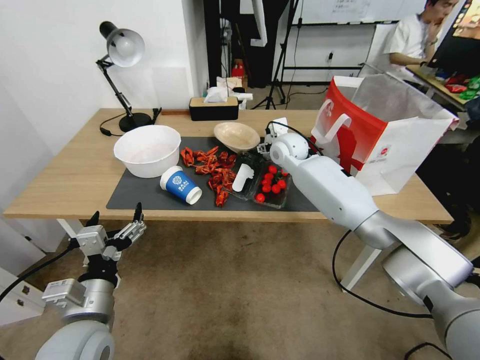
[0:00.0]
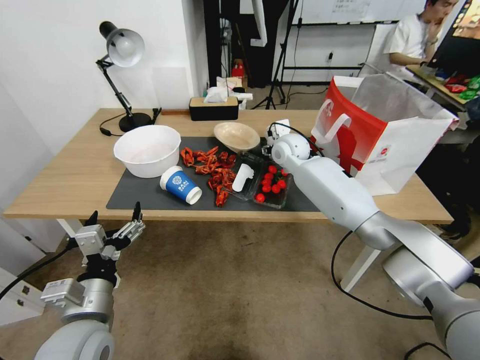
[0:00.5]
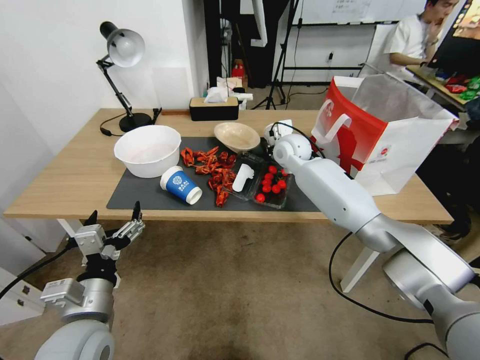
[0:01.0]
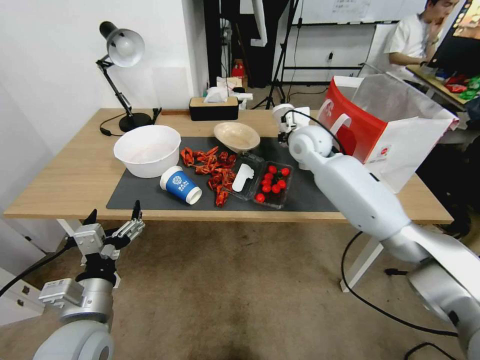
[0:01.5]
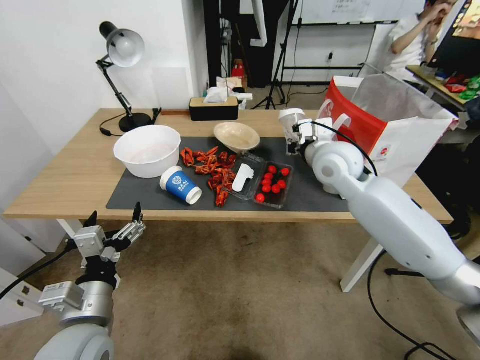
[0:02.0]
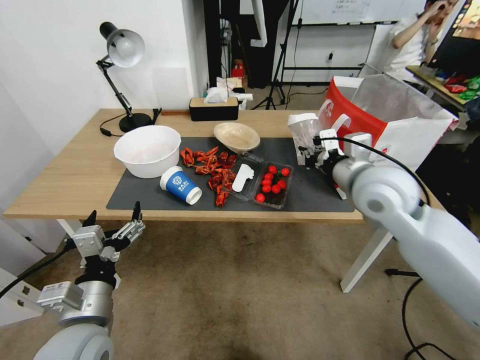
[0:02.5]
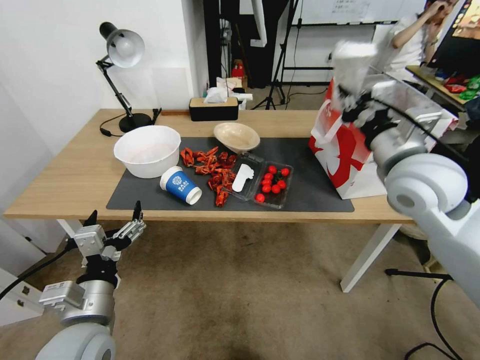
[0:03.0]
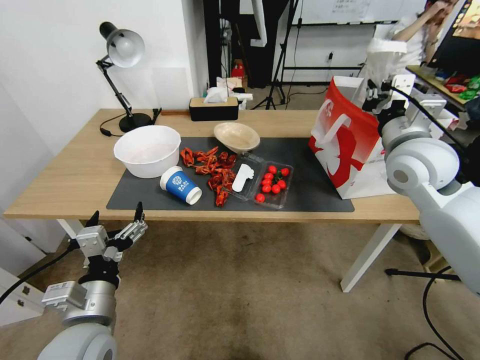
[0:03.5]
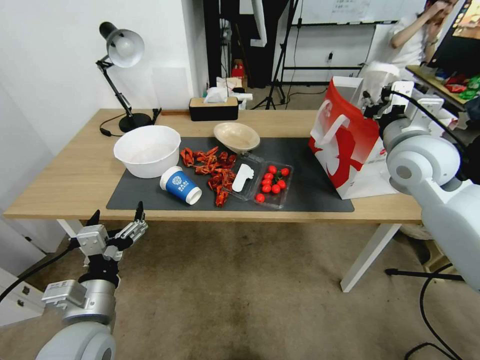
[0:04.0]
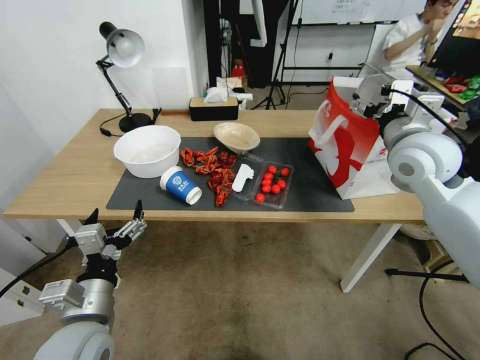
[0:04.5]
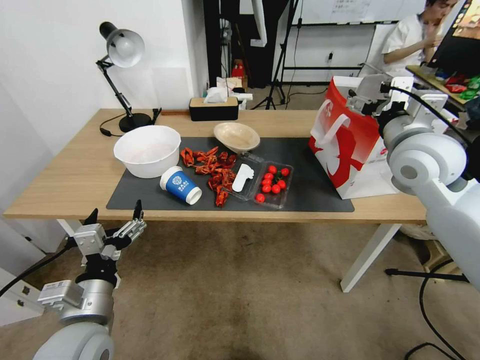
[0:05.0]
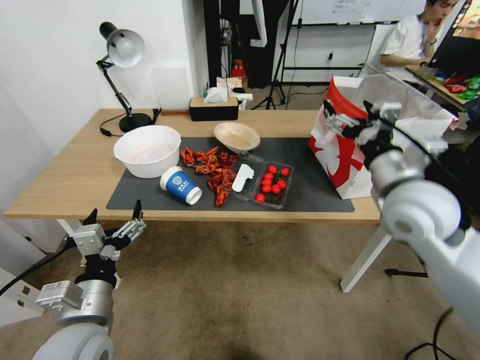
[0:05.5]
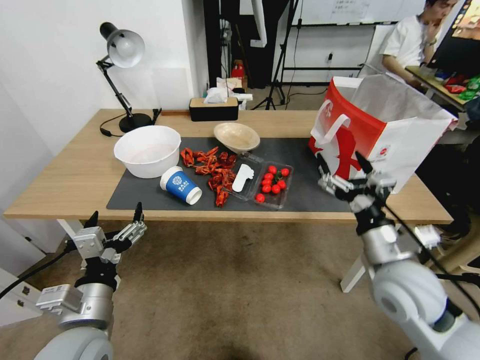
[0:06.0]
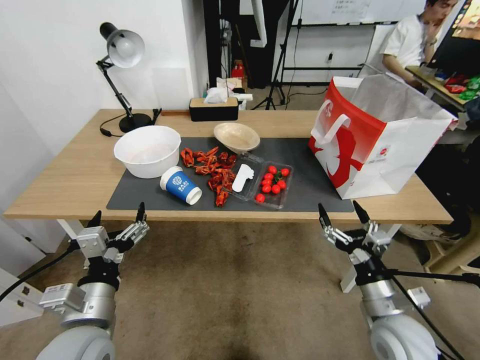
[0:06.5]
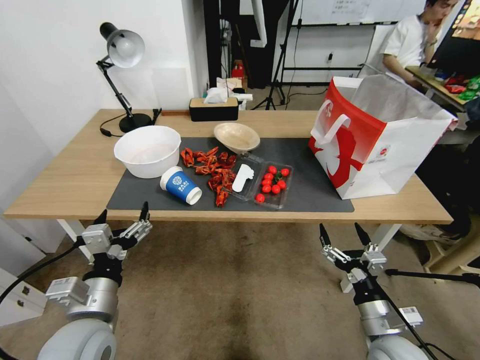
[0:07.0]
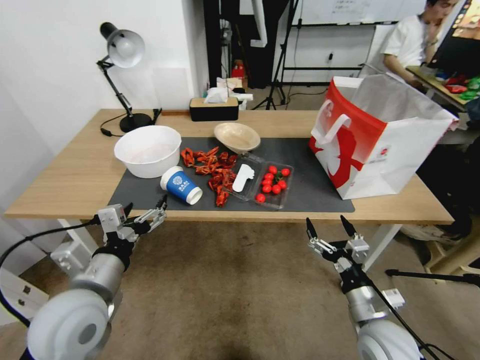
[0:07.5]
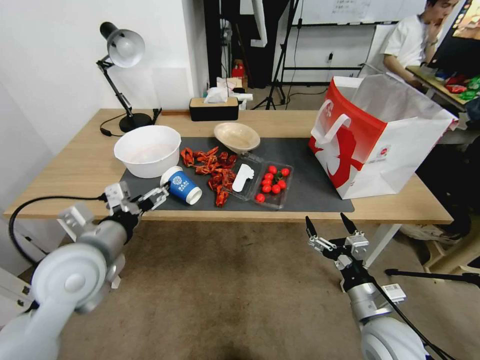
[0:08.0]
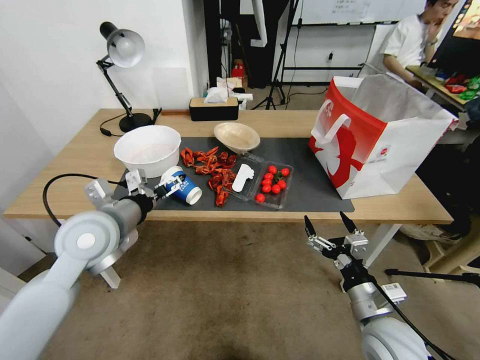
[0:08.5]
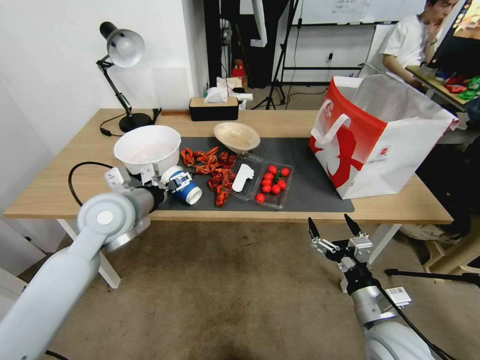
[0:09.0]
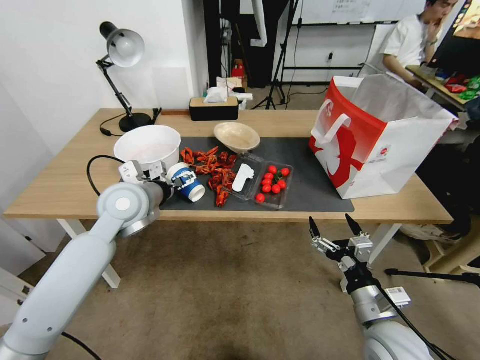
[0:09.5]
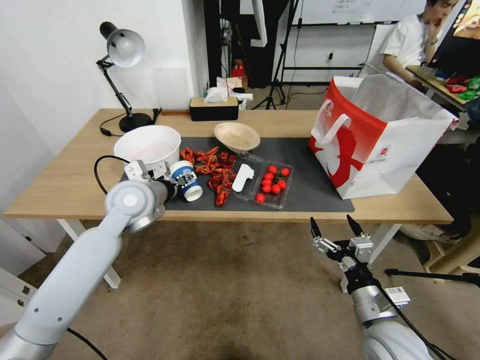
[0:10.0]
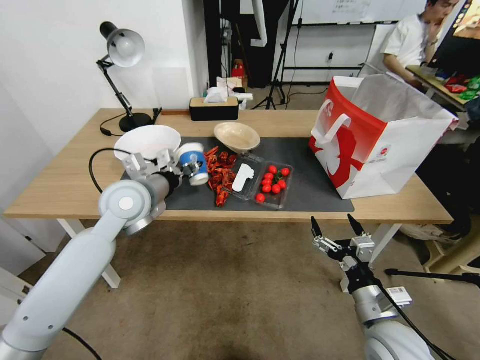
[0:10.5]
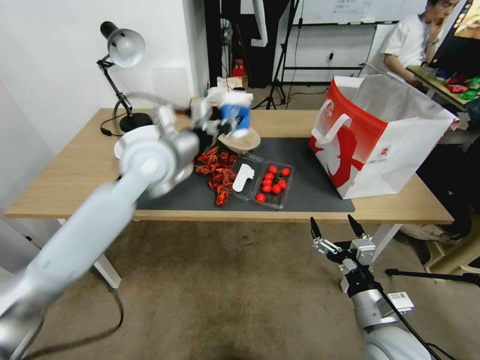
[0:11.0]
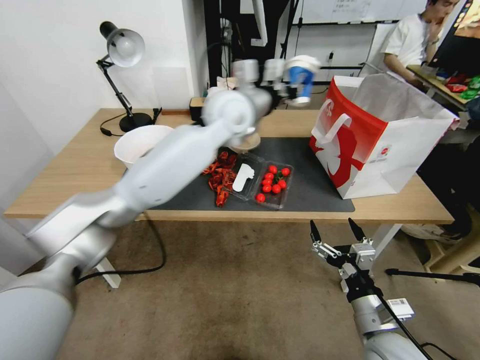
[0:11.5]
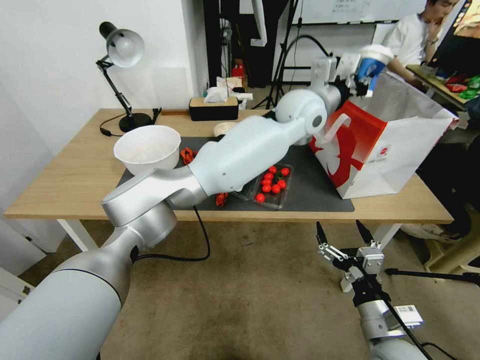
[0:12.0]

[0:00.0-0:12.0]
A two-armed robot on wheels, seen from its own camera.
0.0 to 2.0 s: The right gripper heads backward, to the right and upward, covering some 15 cm, and closes.
2.0 to 4.0 s: The right gripper is displaced to the right, backward and upward by some 15 cm, and opens up.
4.0 to 6.0 s: The right gripper moves backward and downward, about 20 cm, and opens its fingers.
6.0 to 8.0 s: The left gripper travels forward and upward by about 15 cm. Meanwhile the right gripper travels downward and backward by roughly 15 cm.
8.0 to 10.0 s: The left gripper goes approximately 15 cm forward.
10.0 to 12.0 s: The left gripper goes some 35 cm to the right, and closes its fingers.

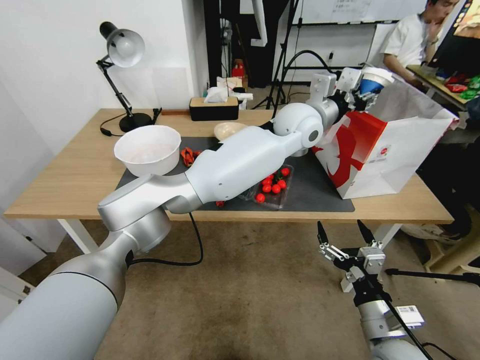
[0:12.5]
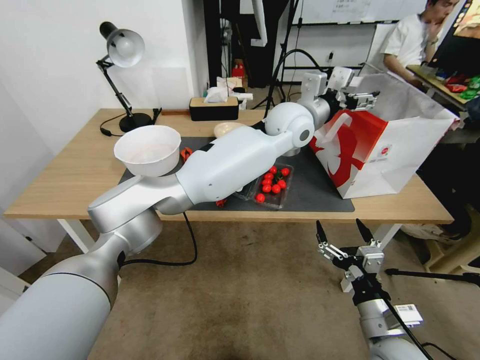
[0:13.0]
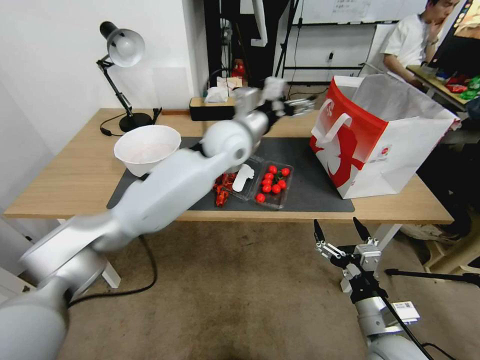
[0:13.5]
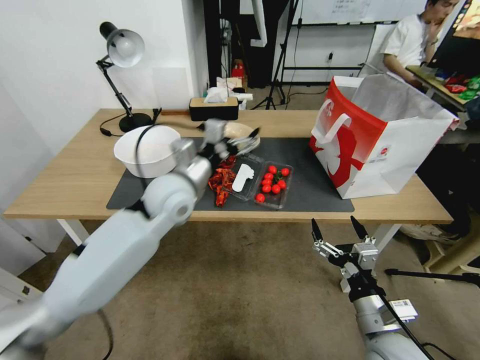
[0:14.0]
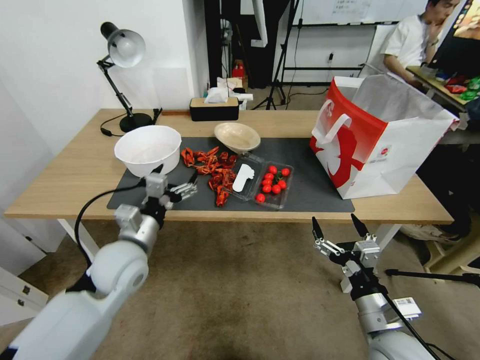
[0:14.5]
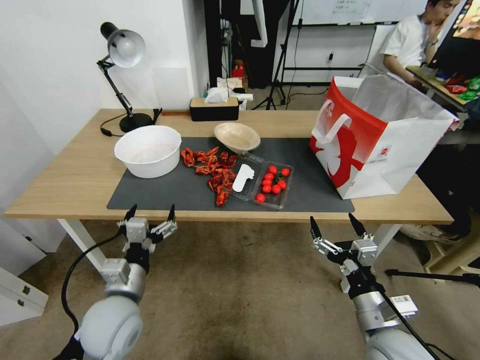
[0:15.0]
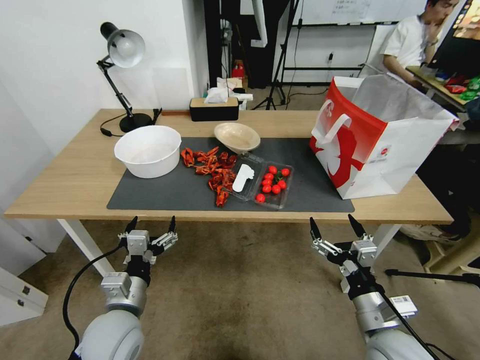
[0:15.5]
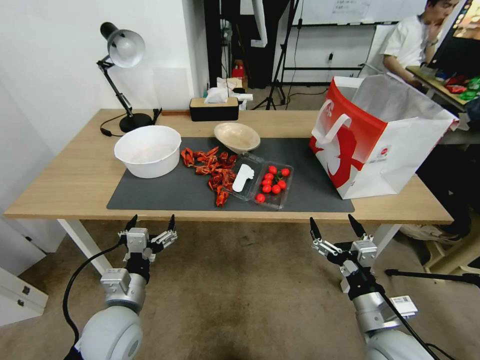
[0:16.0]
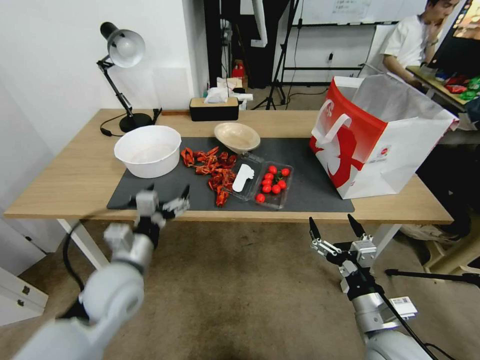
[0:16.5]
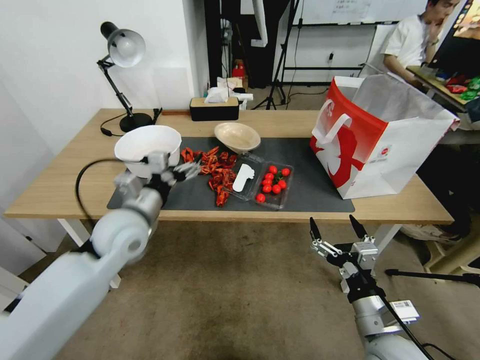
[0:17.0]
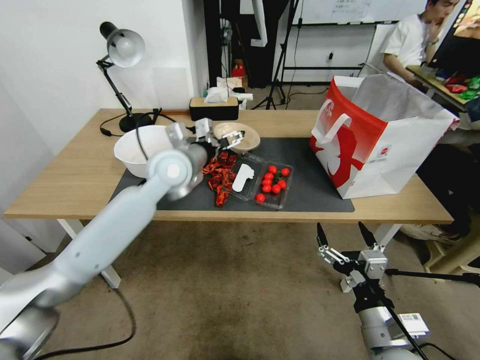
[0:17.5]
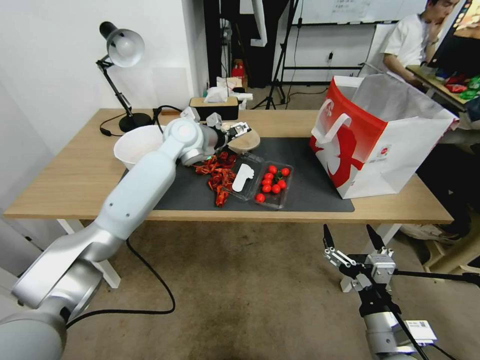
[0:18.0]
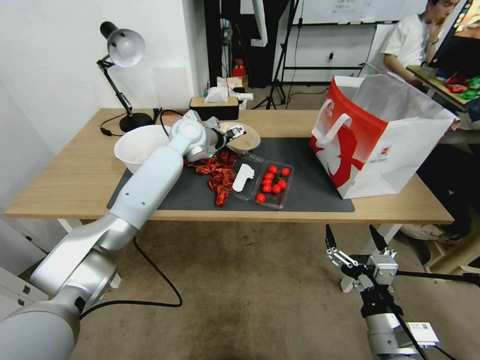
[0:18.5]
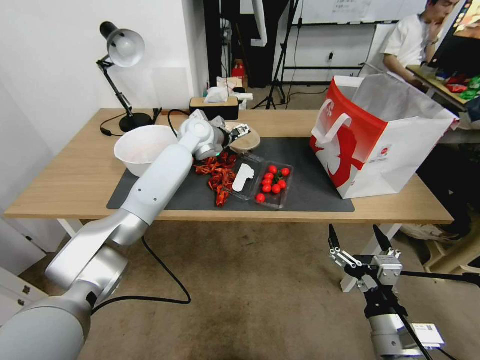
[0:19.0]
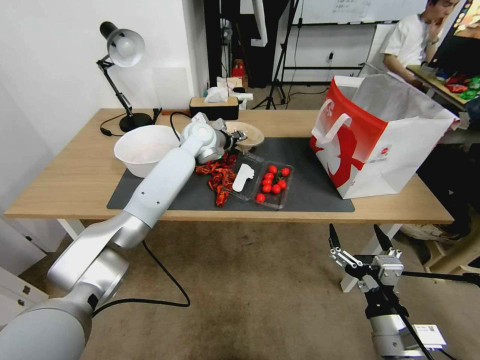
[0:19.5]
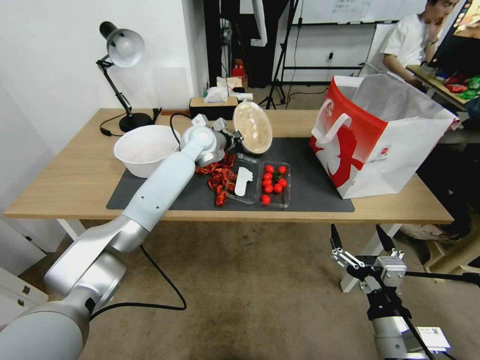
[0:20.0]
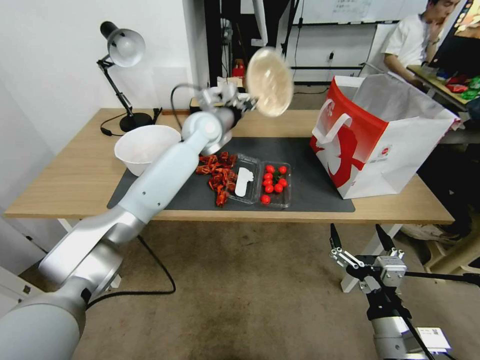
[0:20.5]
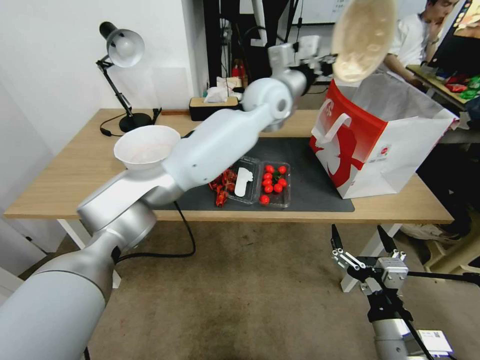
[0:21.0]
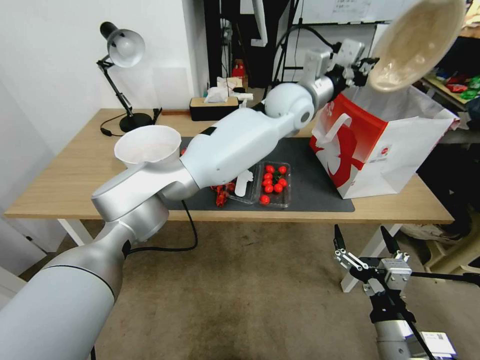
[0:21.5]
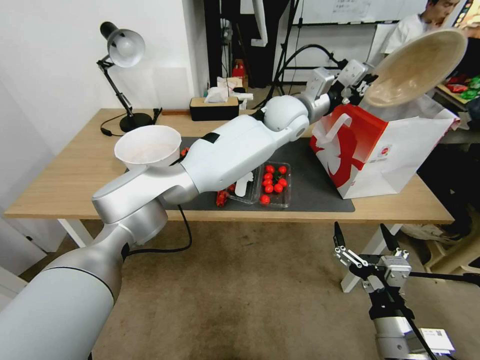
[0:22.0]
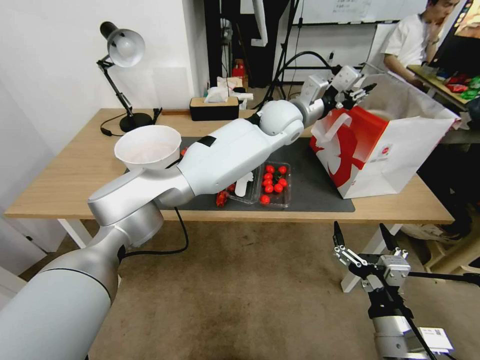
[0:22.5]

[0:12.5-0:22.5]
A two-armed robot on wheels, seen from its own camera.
12.5 to 14.5 s: The left gripper goes roughly 40 cm to the left, backward and downward, and opens.
16.5 to 18.5 s: The left gripper is displaced forward by roughly 35 cm.
18.5 to 20.5 s: The left gripper goes approximately 5 cm to the right, and closes up.
20.5 to 22.5 s: The left gripper moves to the right, approximately 15 cm, and opens.

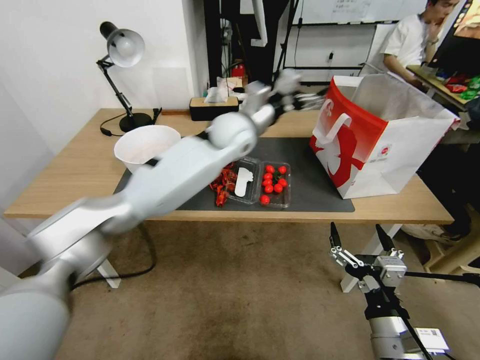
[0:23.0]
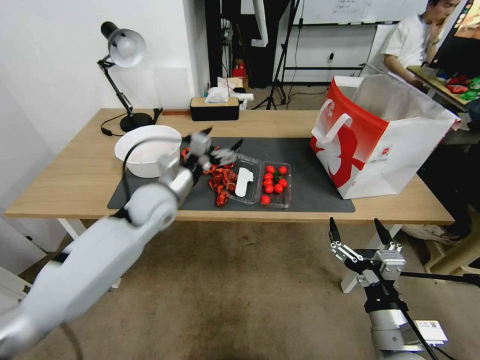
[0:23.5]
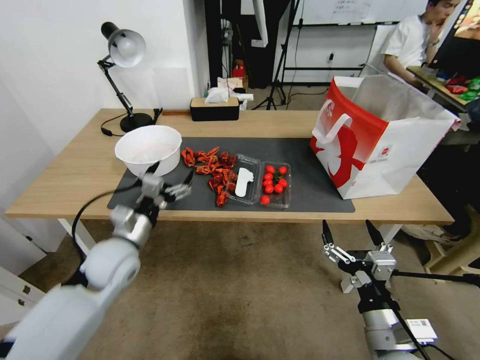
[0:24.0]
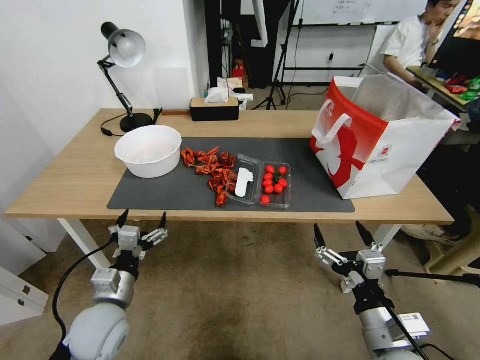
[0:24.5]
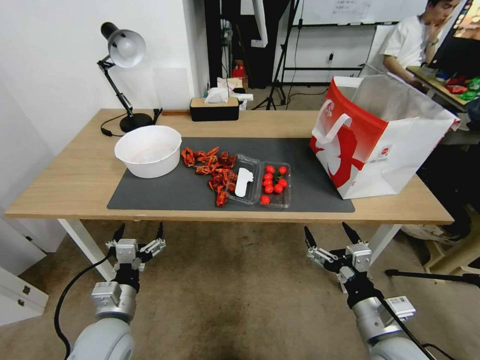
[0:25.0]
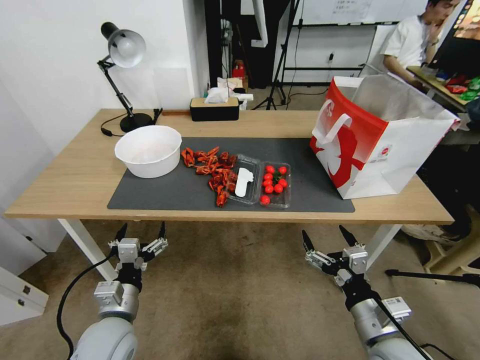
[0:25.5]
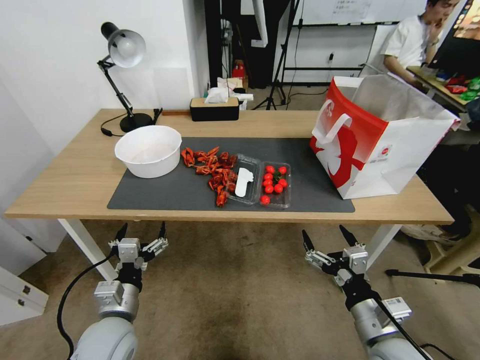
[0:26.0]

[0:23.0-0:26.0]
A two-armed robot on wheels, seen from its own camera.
23.0 to 24.5 s: The left gripper moves backward, to the left and downward, about 50 cm.
24.5 to 26.0 s: The grippers move only a little.

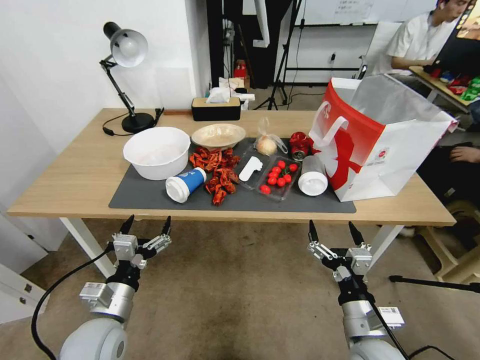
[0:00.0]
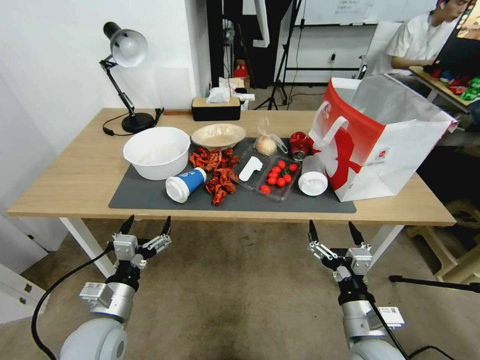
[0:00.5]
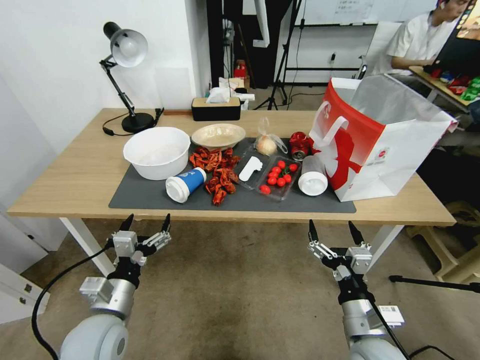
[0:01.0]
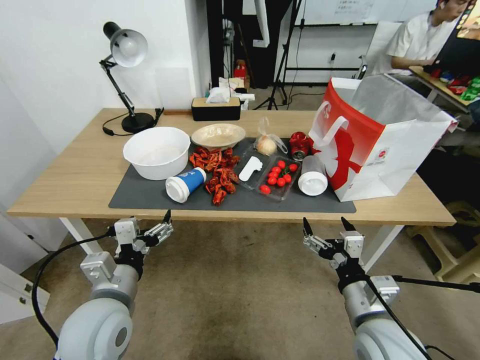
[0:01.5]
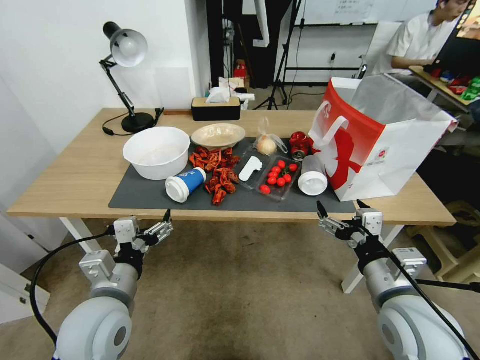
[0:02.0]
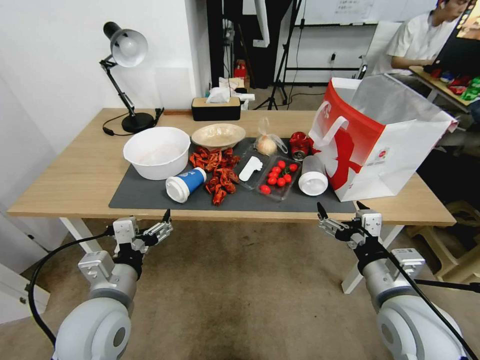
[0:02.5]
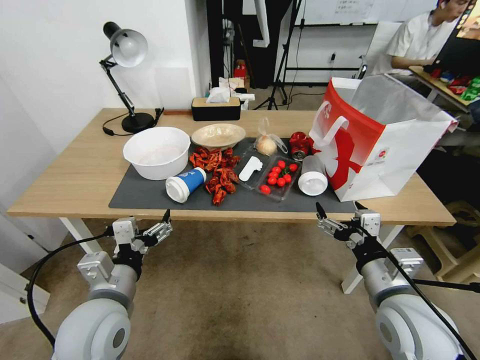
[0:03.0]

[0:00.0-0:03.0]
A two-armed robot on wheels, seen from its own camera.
1.5 to 3.0 s: The right gripper ends up some 5 cm from where it was.
